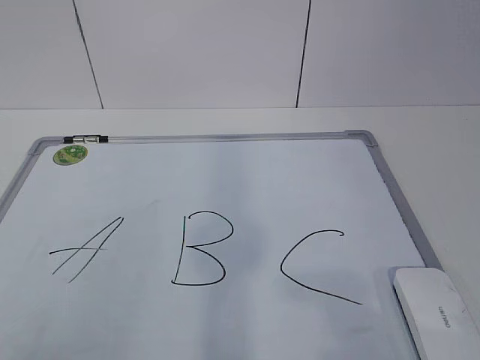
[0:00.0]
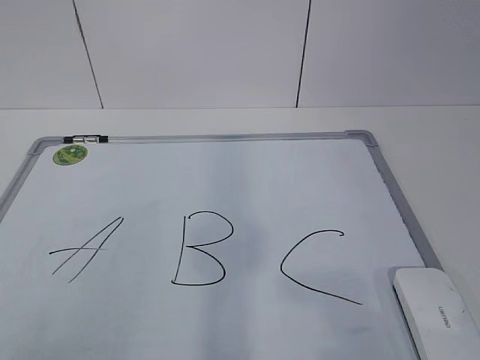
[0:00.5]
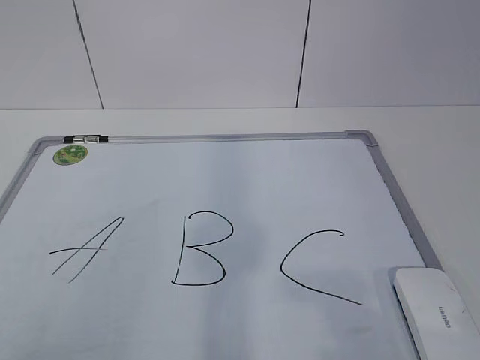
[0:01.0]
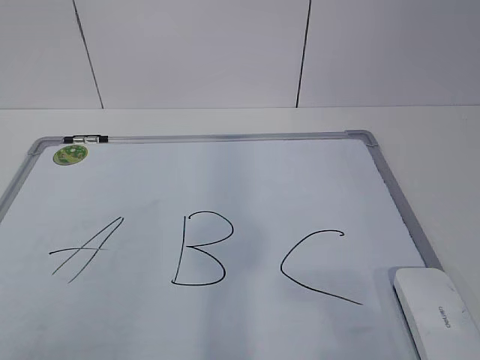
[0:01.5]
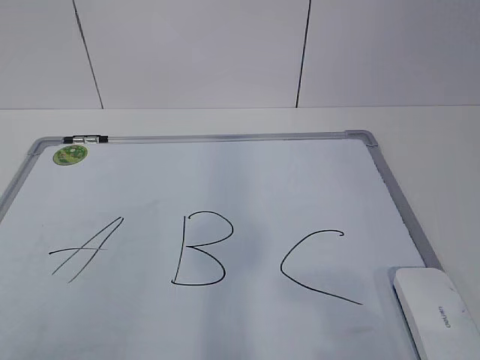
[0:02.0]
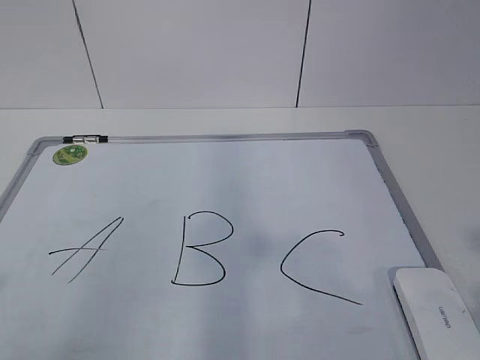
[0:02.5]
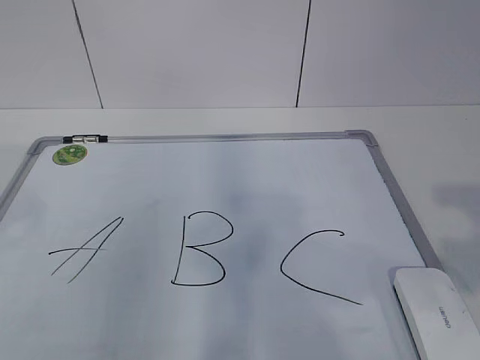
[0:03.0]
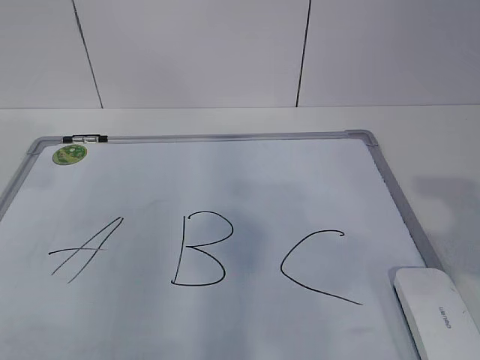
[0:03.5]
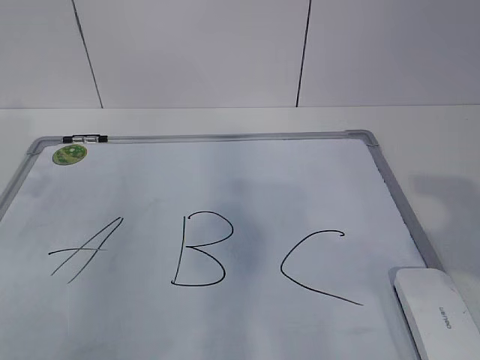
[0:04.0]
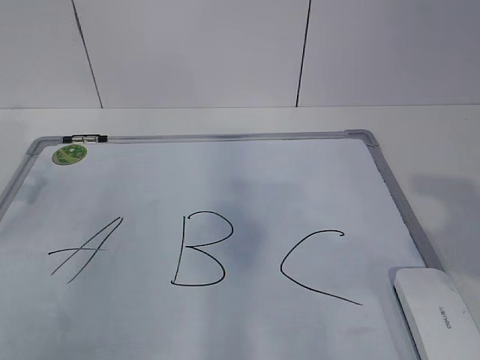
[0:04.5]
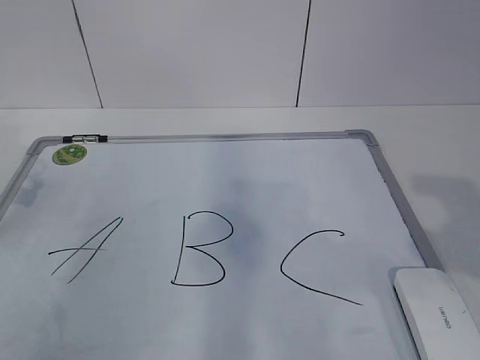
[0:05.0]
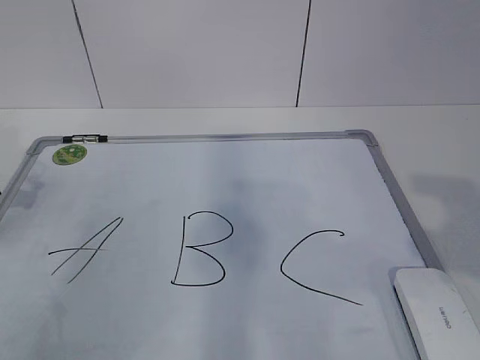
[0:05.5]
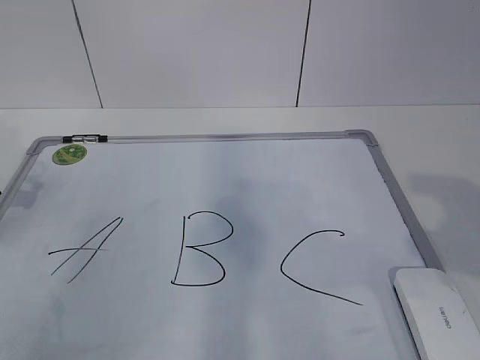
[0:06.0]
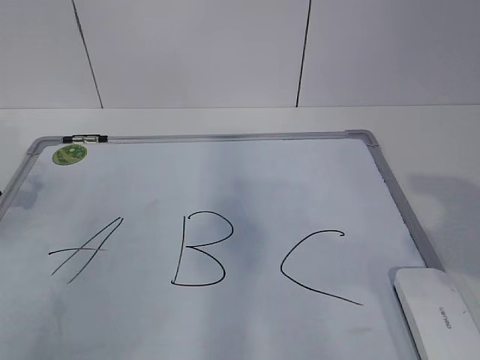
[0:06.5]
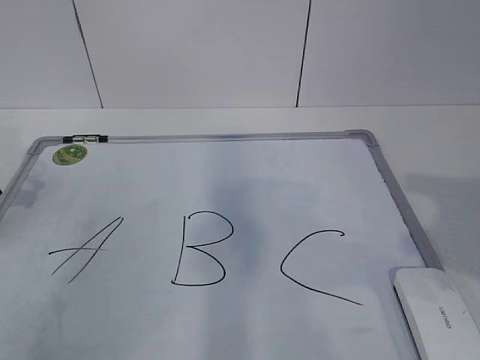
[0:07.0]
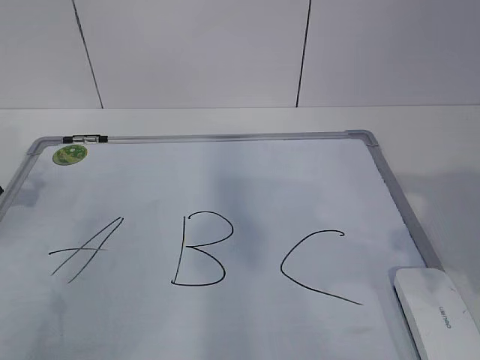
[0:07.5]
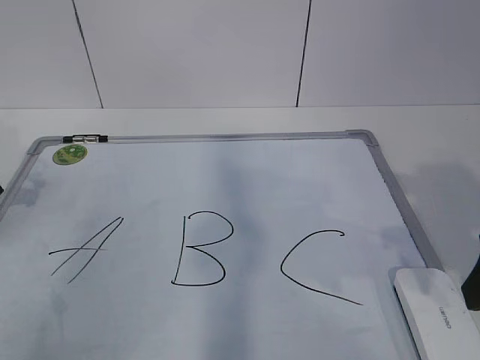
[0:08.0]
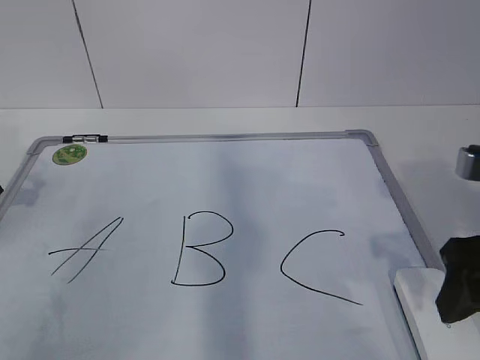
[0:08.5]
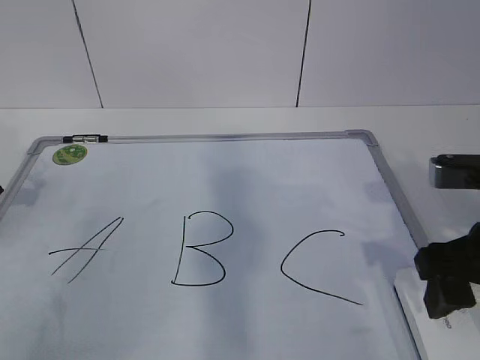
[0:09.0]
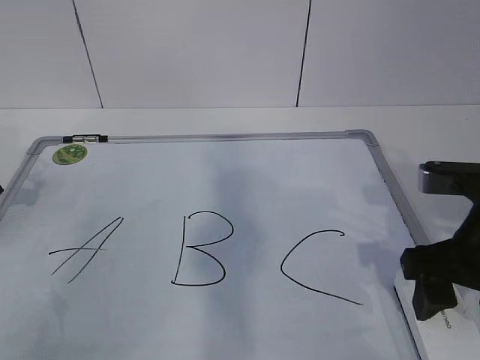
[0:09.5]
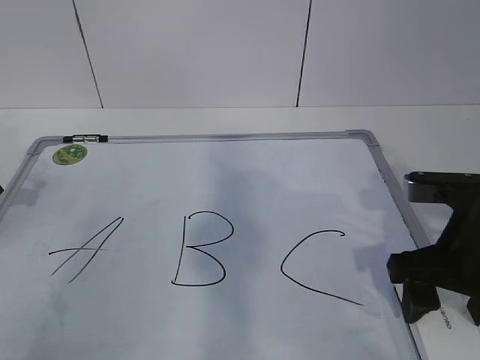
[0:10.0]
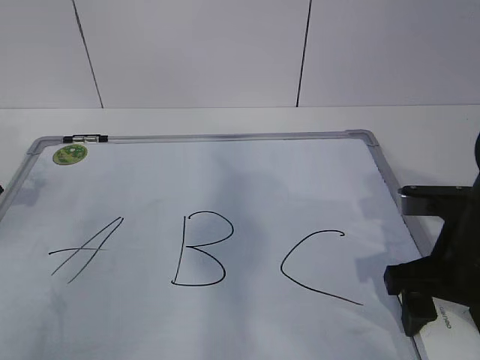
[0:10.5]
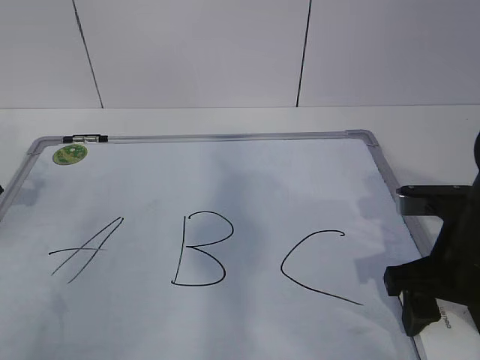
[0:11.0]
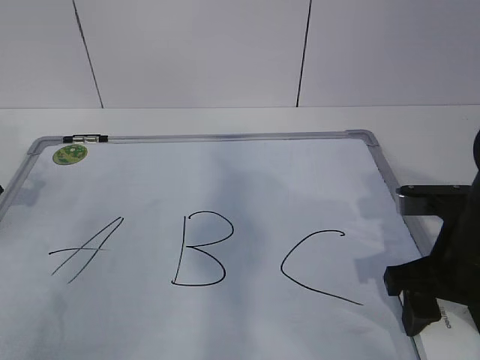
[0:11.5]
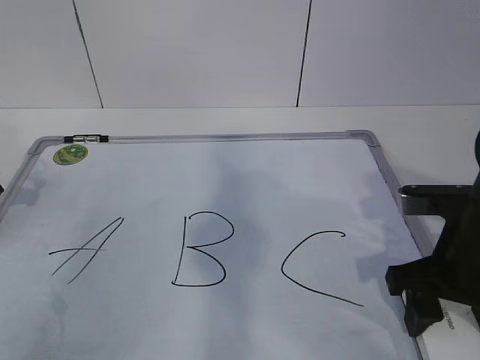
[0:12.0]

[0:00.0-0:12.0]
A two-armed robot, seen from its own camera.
Task of the whole recording: pick up the eraser on the blackboard and erase the letter "B".
Step, 0:06.5 to 0:09.0: Grab the eraser with your right hand.
0:02.0 to 0:04.0: The left gripper is displaced forward by some 30 cm; the right gripper is displaced forward by some 10 cm.
0:08.0 to 0:10.0: The right gripper heads downward and forward, covering roughly 10 cm.
0:10.0 to 0:12.0: The right gripper closes up.

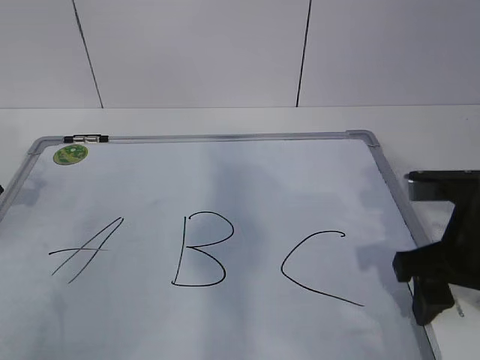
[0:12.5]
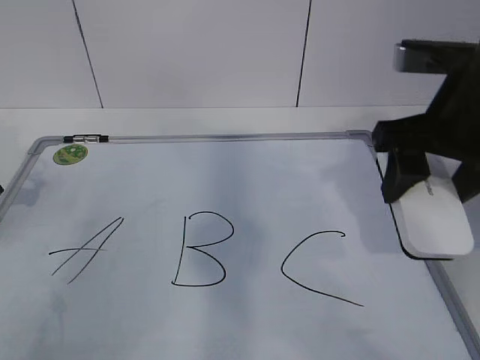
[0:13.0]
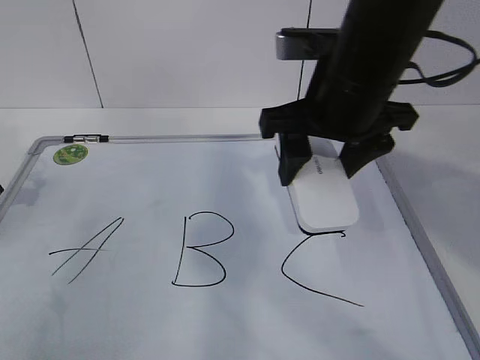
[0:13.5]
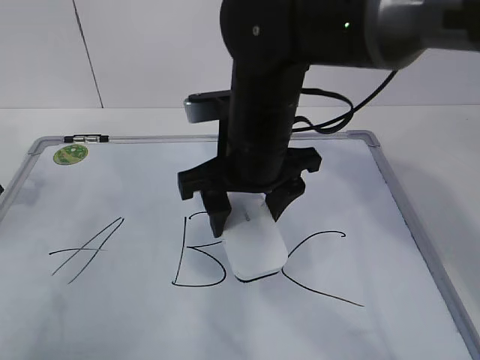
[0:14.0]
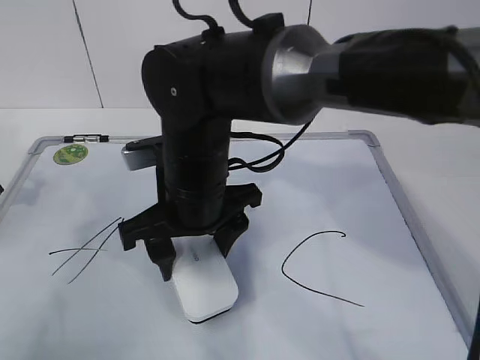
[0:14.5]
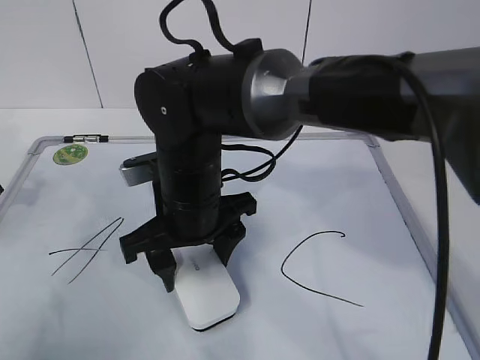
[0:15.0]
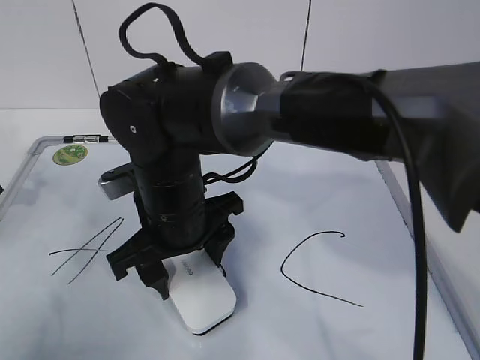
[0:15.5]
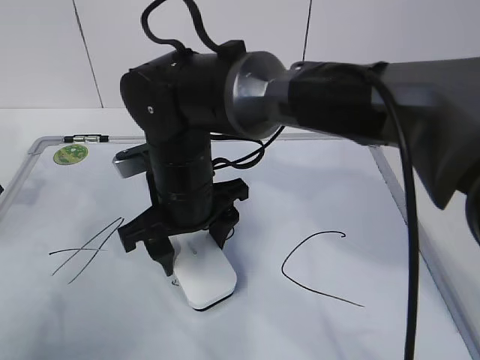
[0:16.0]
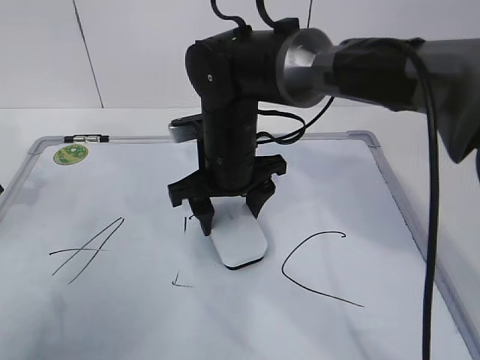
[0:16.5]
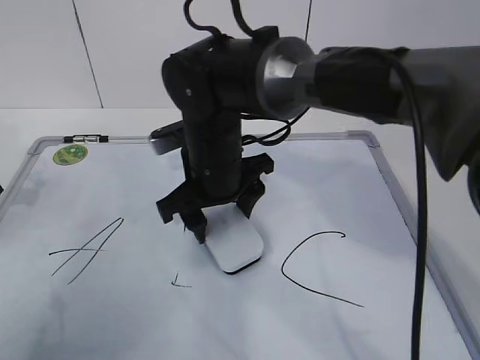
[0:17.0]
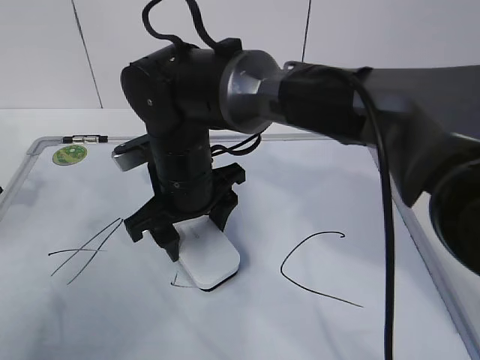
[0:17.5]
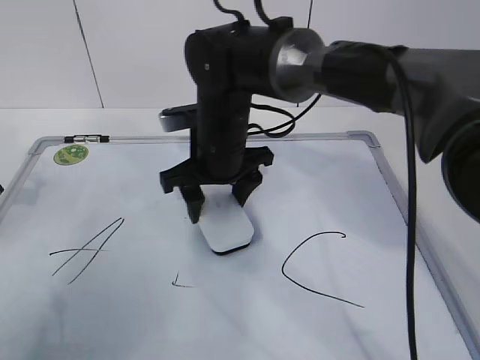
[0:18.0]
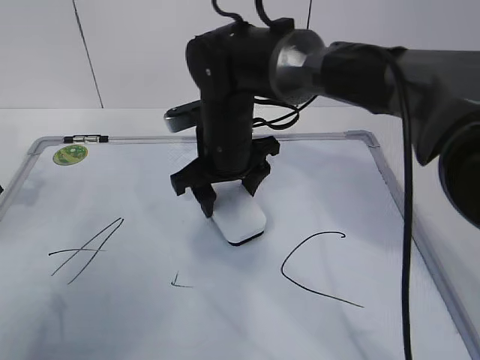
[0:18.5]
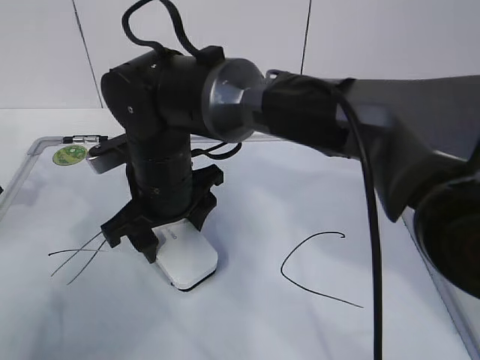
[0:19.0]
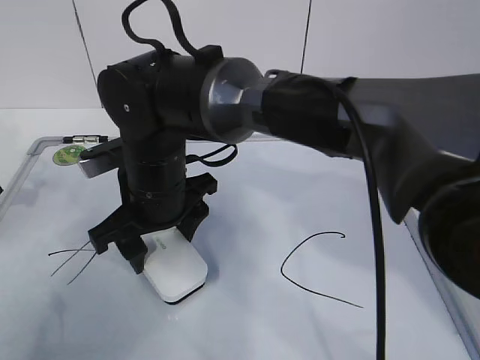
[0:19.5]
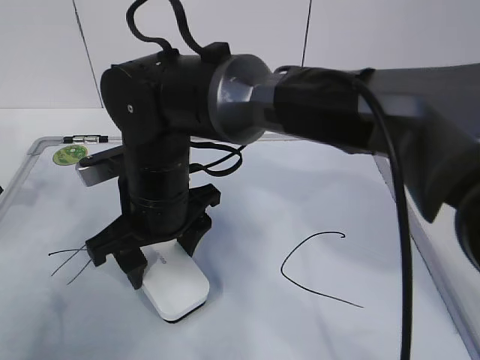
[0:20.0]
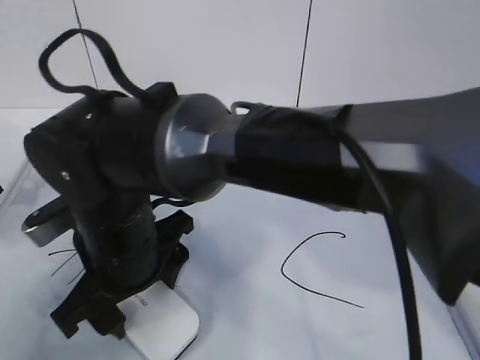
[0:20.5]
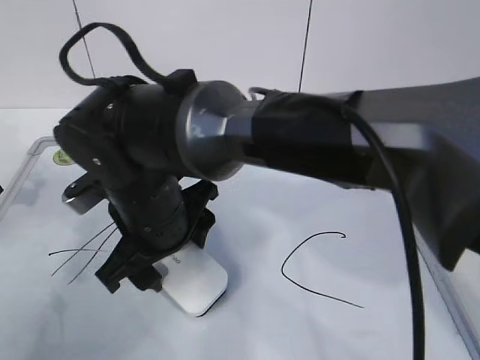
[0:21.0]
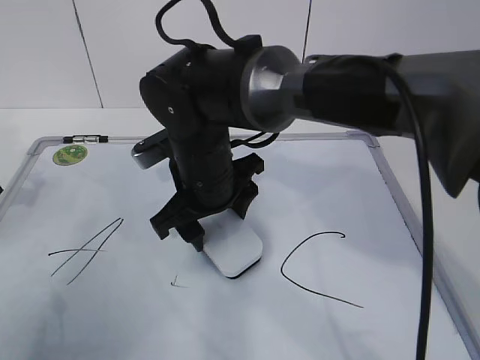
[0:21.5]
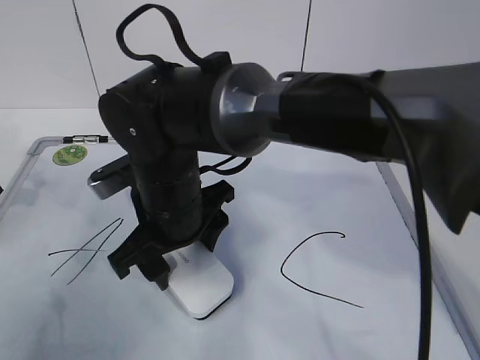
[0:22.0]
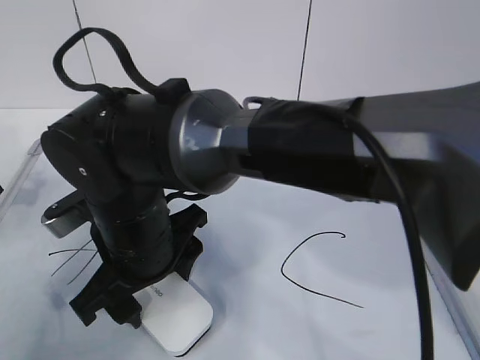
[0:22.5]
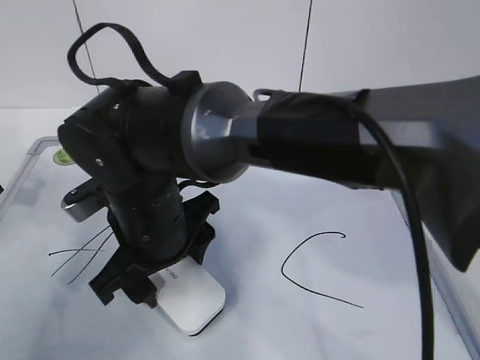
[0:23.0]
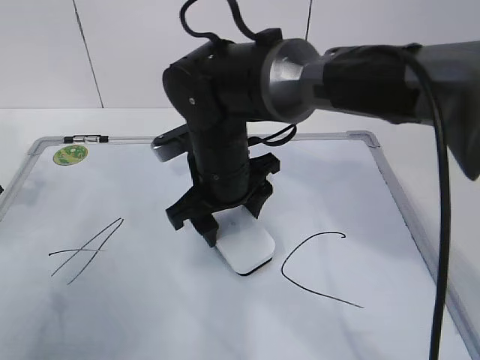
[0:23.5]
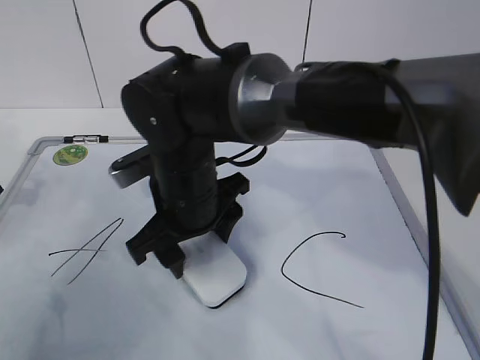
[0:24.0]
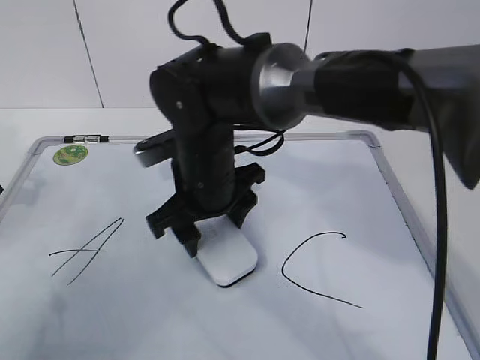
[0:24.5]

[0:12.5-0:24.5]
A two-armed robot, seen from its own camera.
Task of the whole recording: pick up the eraser on the blackboard and erase the letter "B".
Step, 0:12.5 to 0:20.5: Erase the letter B with your right hand.
0:12.5 to 0:14.5: The right gripper moves to the left, some 25 cm.
0:14.5 to 0:16.5: The right gripper goes about 5 cm forward.
0:18.5 to 0:20.5: The right gripper goes some 15 cm backward and to the left.
0:20.5 to 0:22.5: The right gripper travels forward and back again, approximately 10 cm each way.
0:22.5 to 0:24.5: The right gripper is displaced forward and to the right by approximately 10 cm.

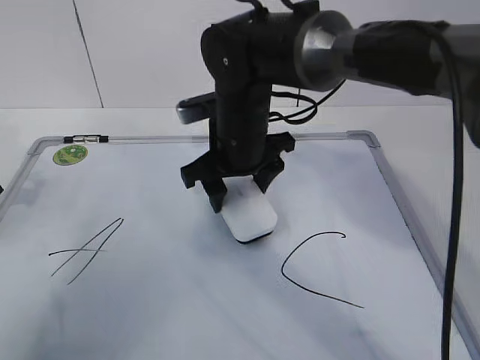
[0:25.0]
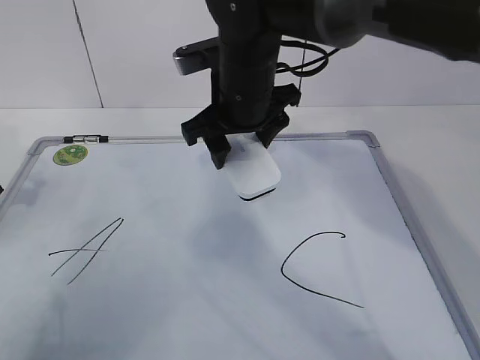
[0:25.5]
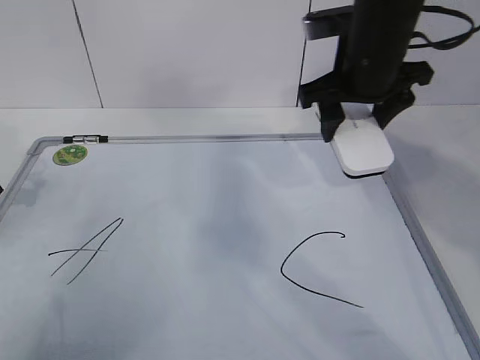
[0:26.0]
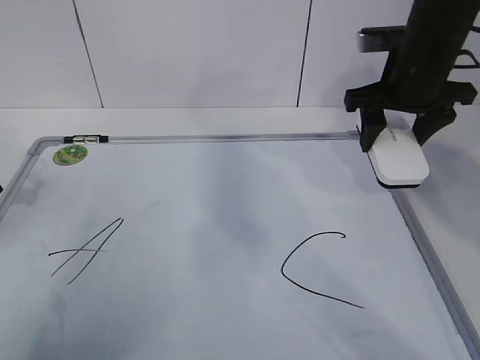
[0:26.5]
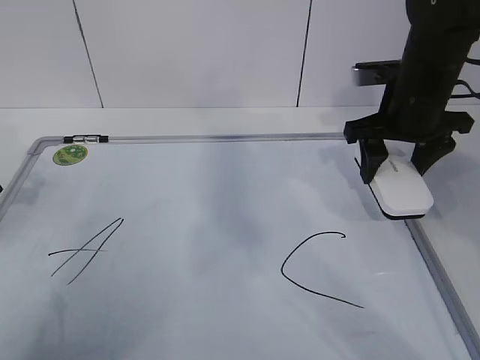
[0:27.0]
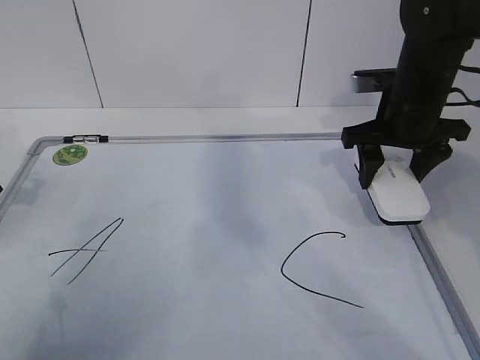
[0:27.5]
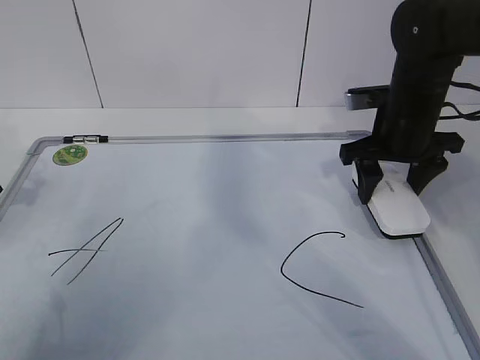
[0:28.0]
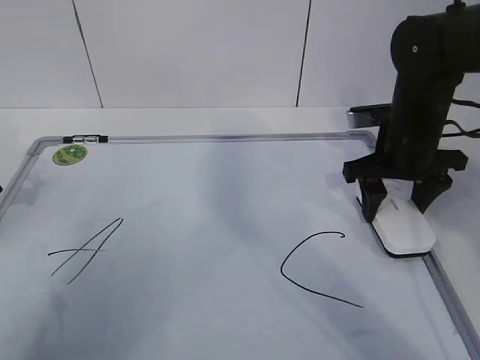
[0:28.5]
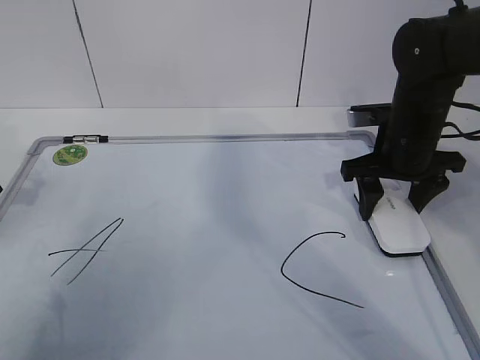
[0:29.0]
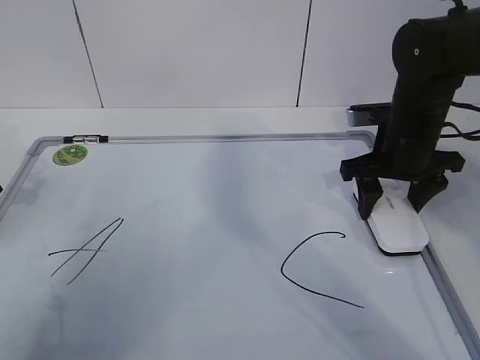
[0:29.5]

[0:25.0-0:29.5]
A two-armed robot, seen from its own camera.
Task of the whole recording: pick up the eraser on the blackboard and erase the letter "B".
0:25.0 to 0:27.0: The right gripper moves to the right, some 20 cm.
0:27.0 to 0:29.5: The right gripper changes place by roughly 5 cm.
